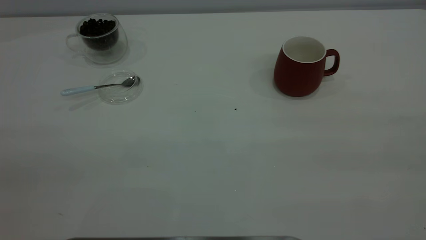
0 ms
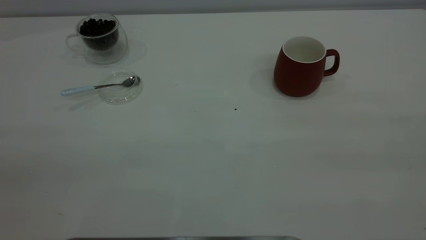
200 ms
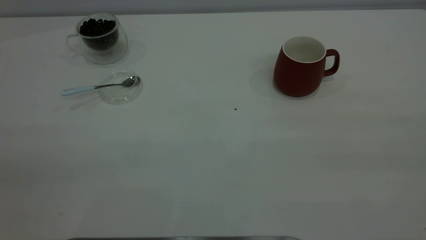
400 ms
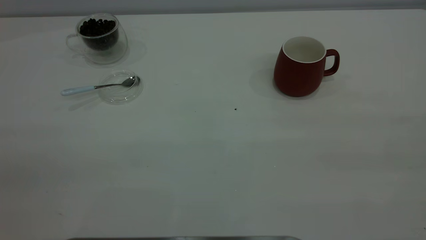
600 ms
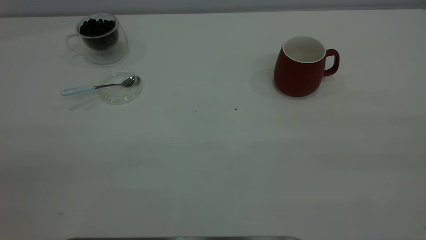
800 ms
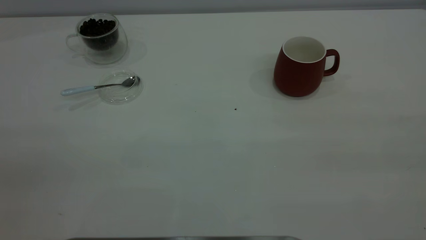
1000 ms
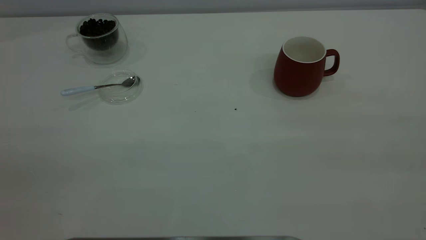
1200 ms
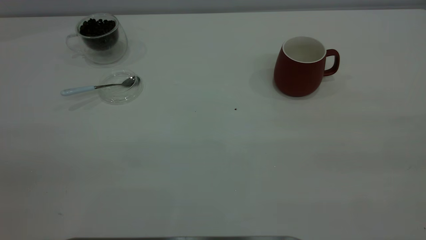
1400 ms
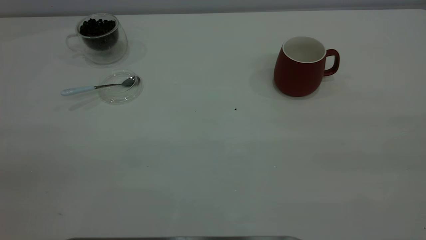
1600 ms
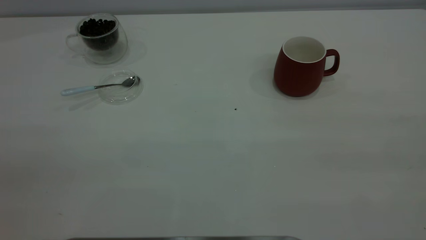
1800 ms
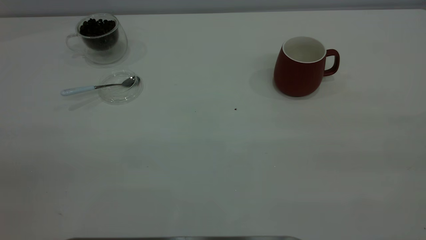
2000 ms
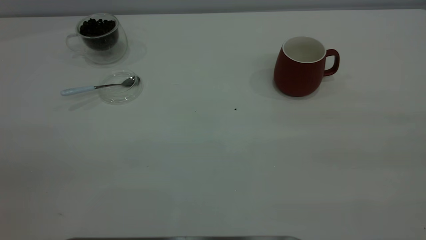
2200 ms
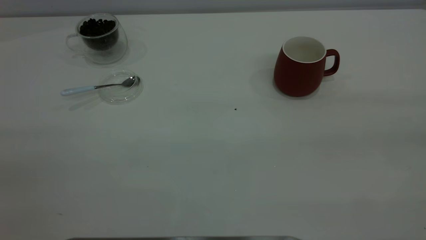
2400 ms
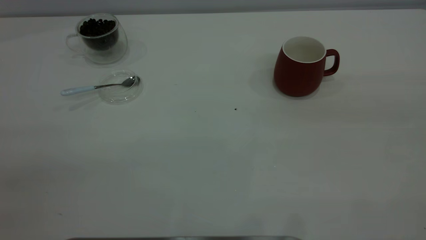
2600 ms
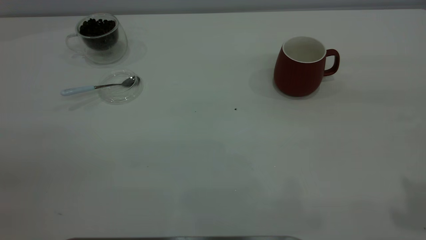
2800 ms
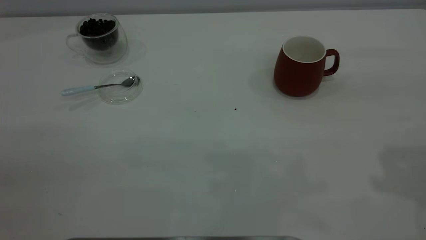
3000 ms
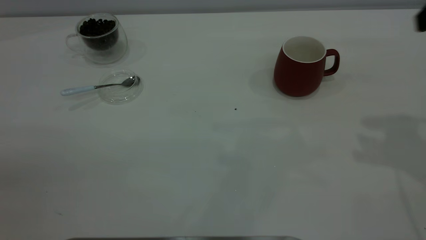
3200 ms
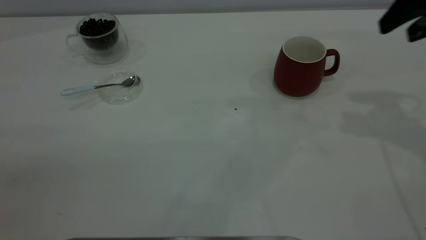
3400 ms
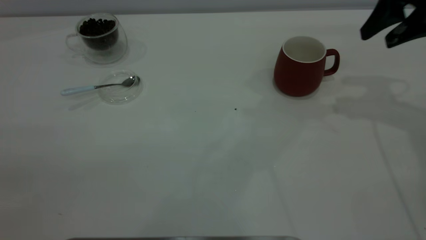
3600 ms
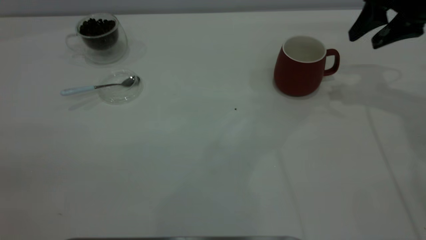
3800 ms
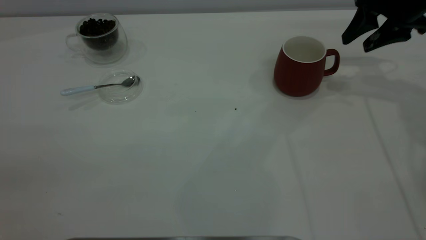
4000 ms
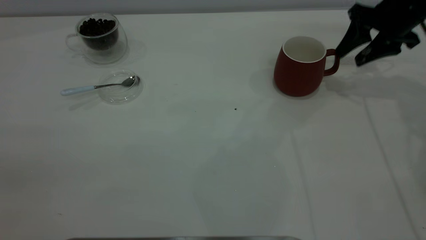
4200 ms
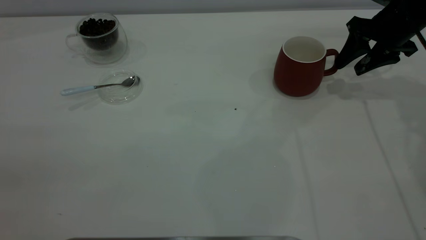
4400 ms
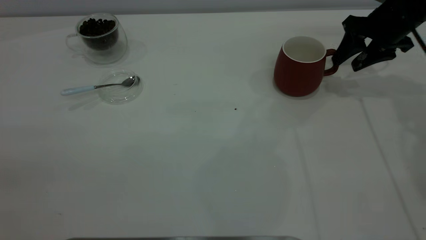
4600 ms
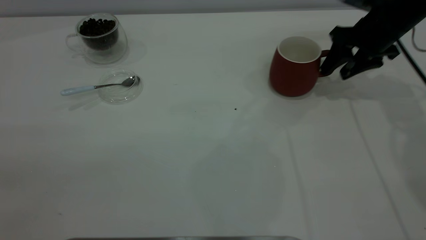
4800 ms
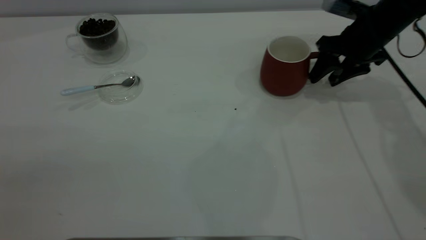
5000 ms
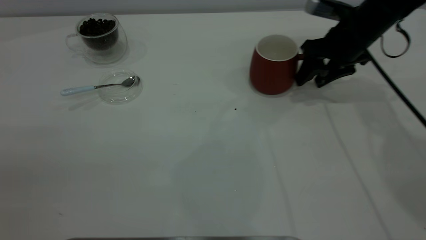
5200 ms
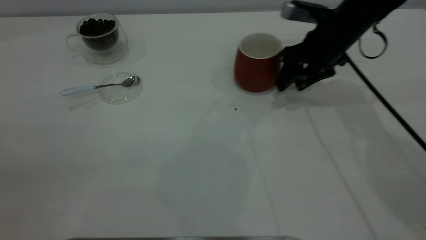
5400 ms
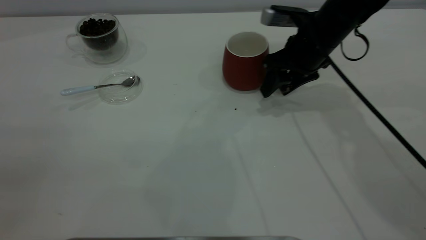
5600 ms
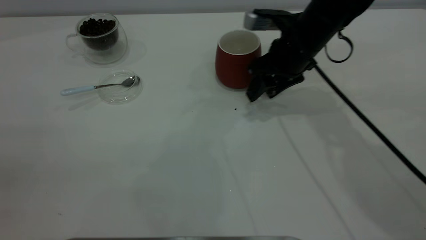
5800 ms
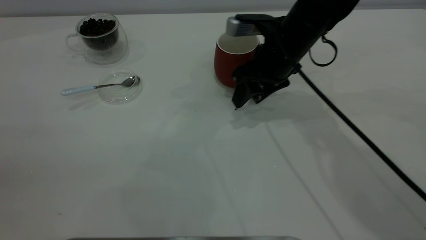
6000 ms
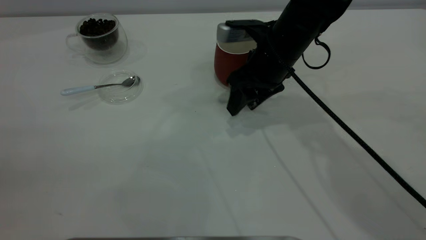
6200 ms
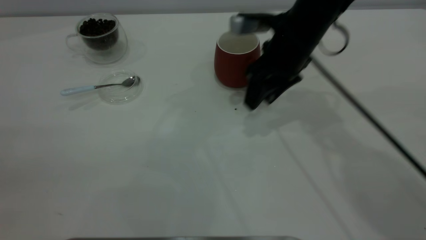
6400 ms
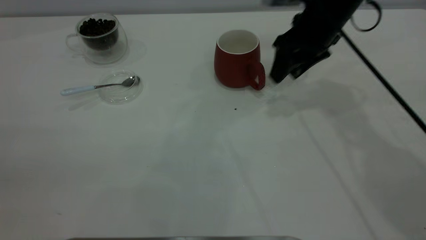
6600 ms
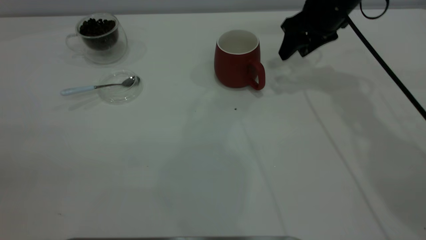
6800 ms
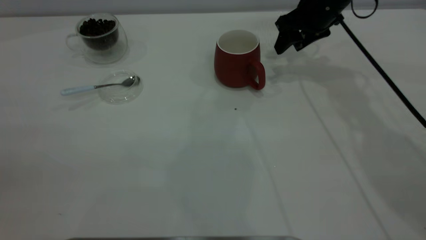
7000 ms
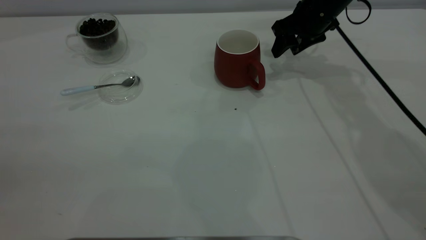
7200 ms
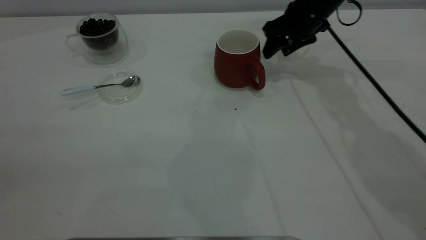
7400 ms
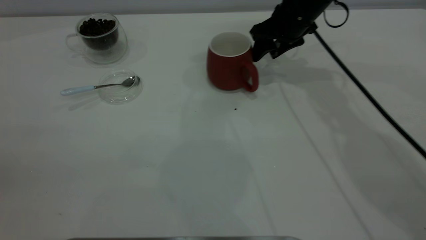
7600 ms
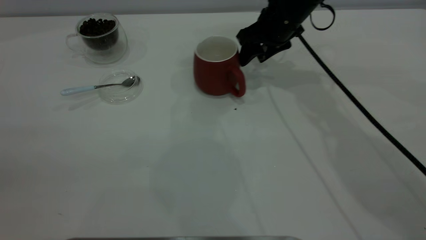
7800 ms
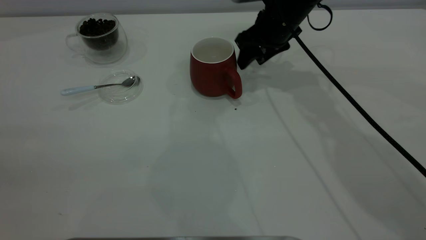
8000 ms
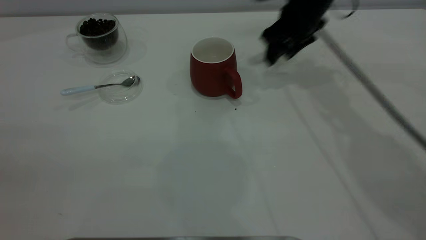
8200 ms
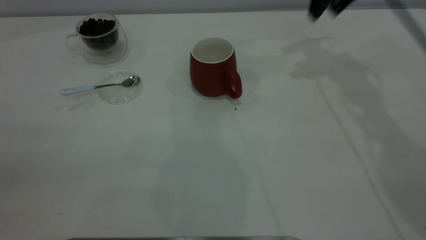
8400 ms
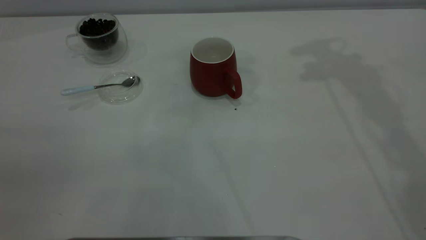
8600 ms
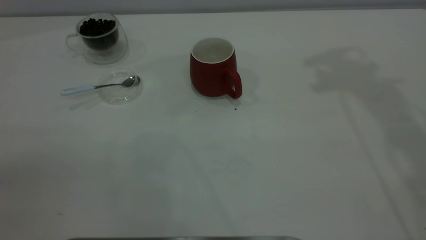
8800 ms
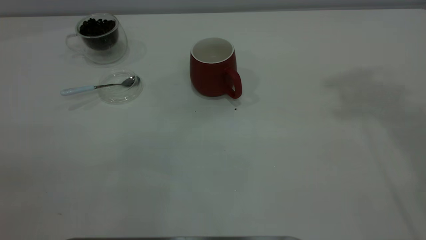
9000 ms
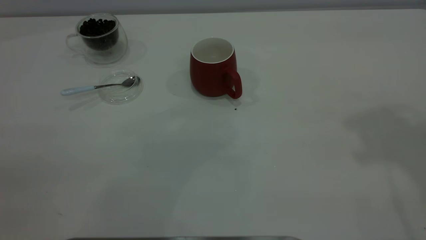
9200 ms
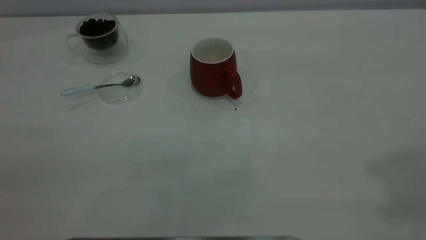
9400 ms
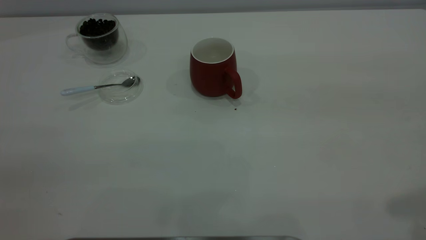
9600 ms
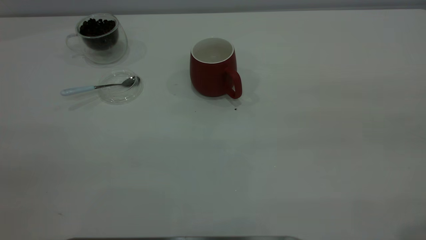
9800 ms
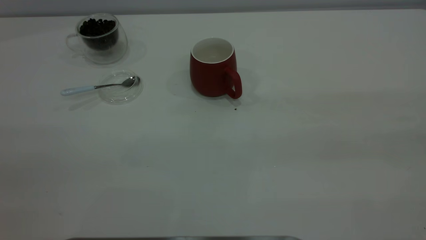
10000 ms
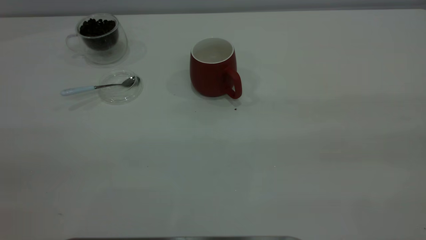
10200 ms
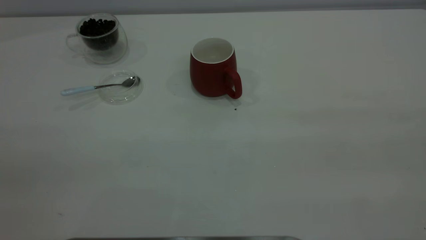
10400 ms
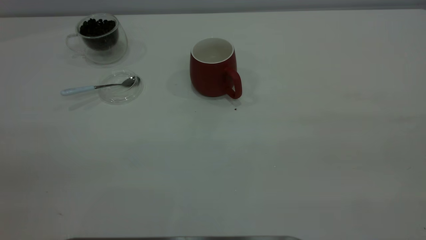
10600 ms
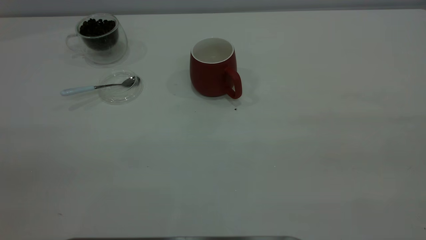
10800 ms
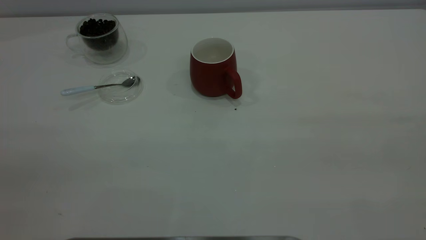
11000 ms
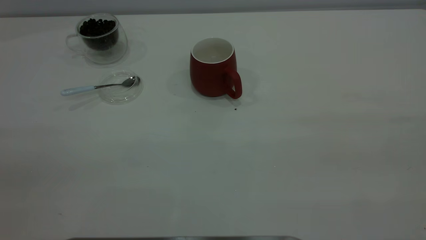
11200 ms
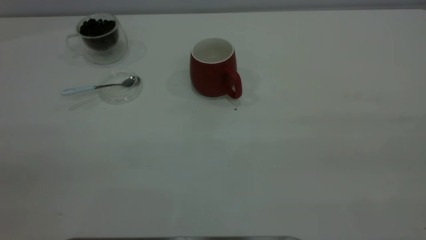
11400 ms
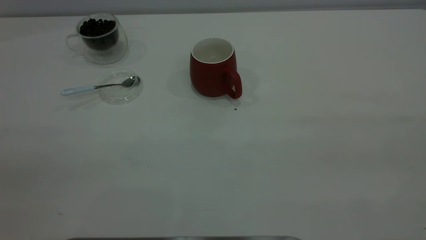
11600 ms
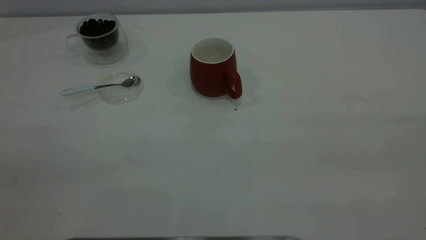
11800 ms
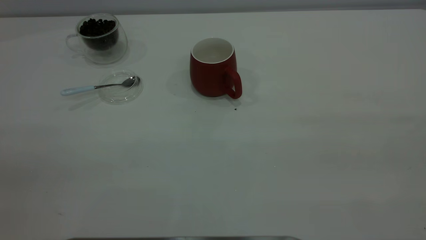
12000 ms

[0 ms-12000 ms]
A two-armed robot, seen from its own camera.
Task of the whole recording: the right gripper place the red cup in the center of the table, the left gripper take the blue spoon from the cup lid and scoop out the coffee beans from the coffee cup and put them into the red cup, the left gripper put the spoon back into the cup lid.
Step, 0 ms to 8000 ms: Move the cup to the center of view.
0 ms to 1600 ms: Both grippers stay put.
3000 ms to 4400 ms: The right gripper goes some 30 cm forward and downward.
4400 ms to 6000 ms: The right gripper heads to the left, covering about 20 cm.
6000 ms to 7600 ms: The right gripper moves forward, some 10 cm.
7600 ms to 9000 ms: The right gripper heads upward, backward and to the right, covering roughly 40 cm.

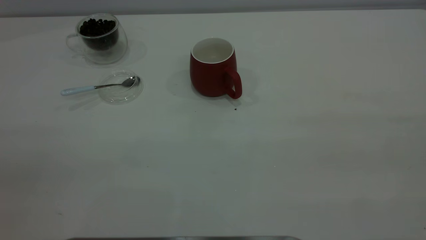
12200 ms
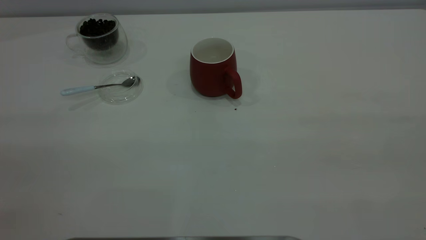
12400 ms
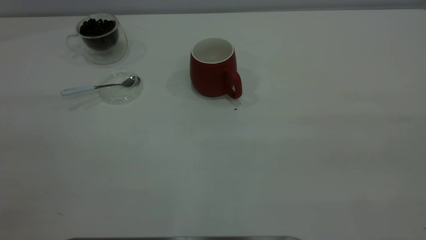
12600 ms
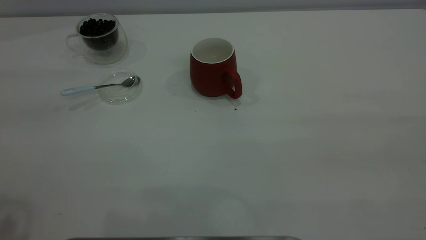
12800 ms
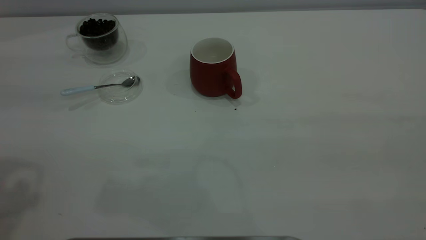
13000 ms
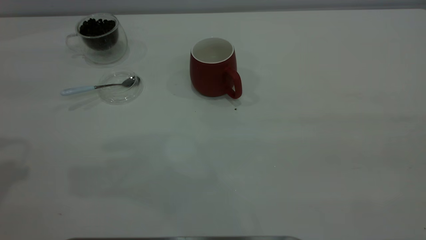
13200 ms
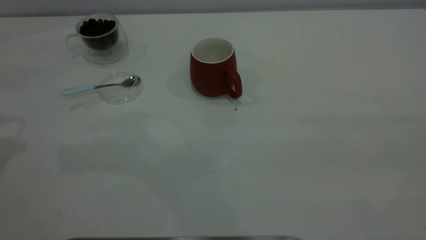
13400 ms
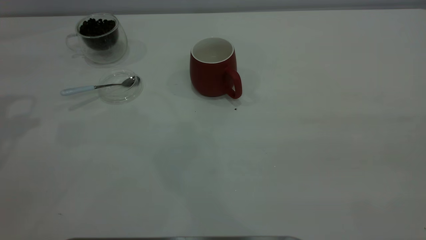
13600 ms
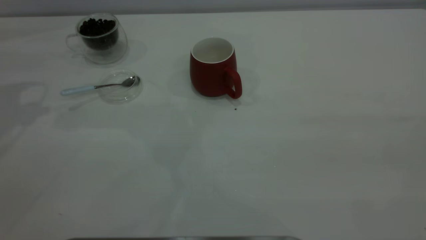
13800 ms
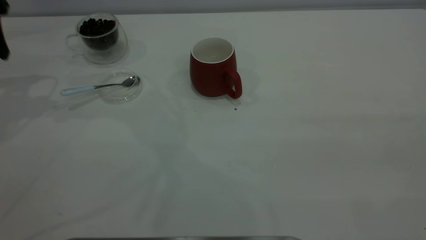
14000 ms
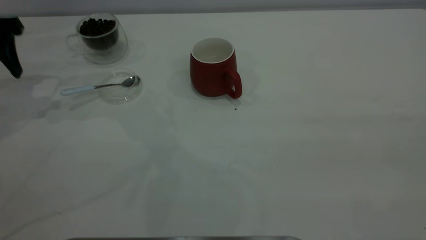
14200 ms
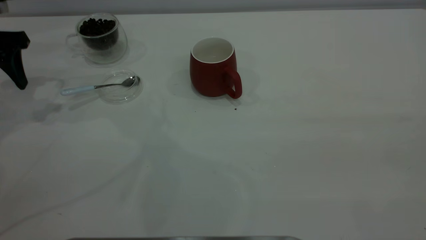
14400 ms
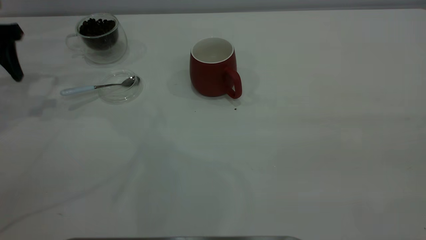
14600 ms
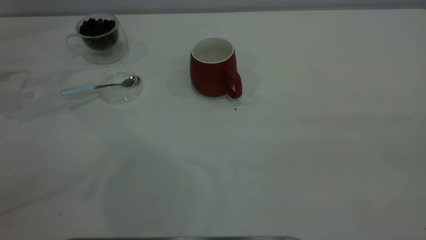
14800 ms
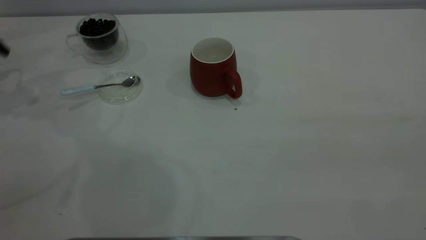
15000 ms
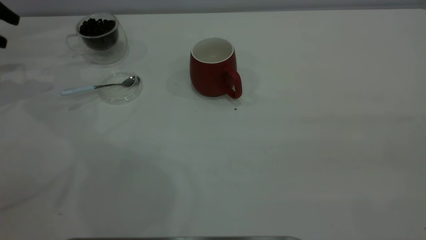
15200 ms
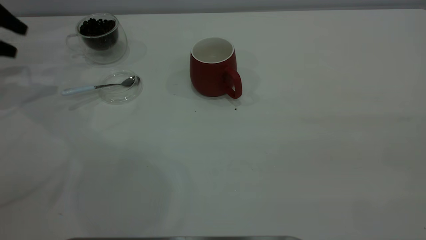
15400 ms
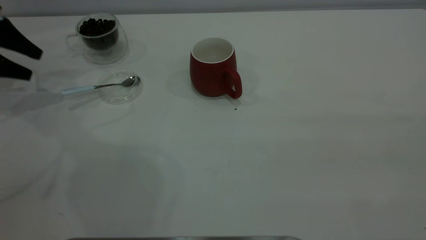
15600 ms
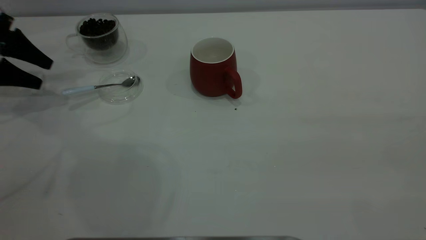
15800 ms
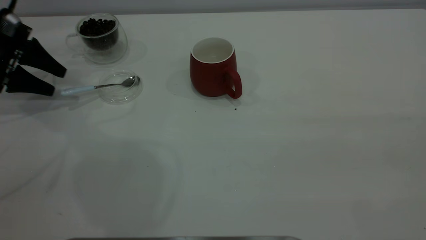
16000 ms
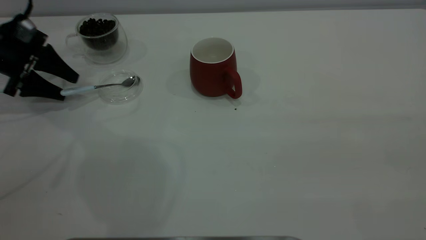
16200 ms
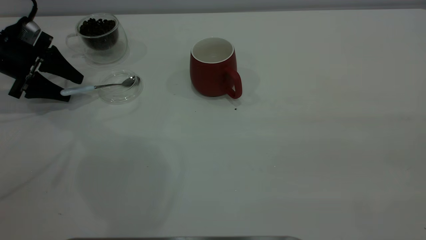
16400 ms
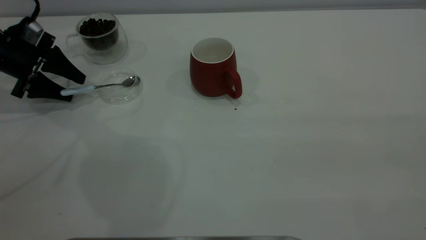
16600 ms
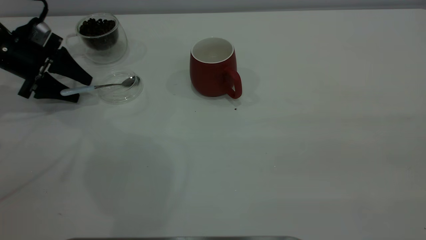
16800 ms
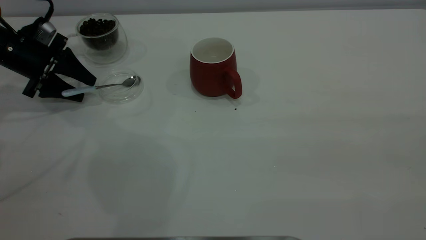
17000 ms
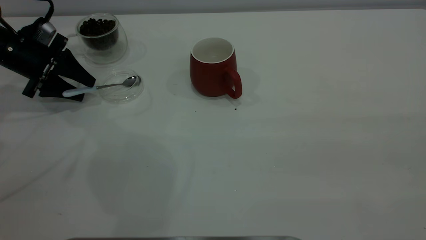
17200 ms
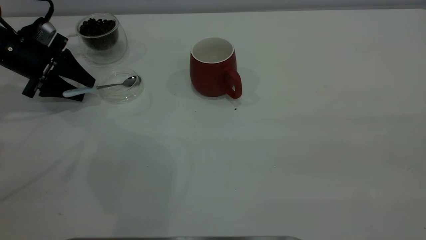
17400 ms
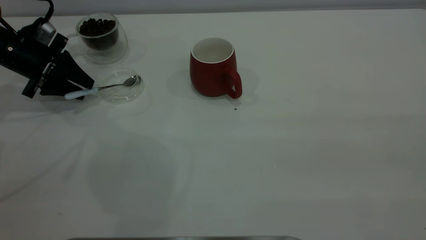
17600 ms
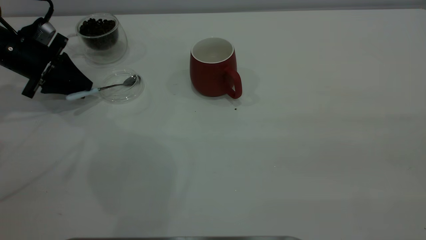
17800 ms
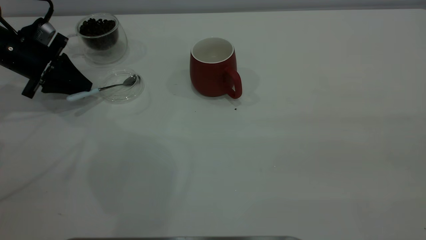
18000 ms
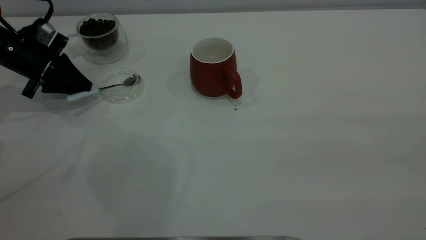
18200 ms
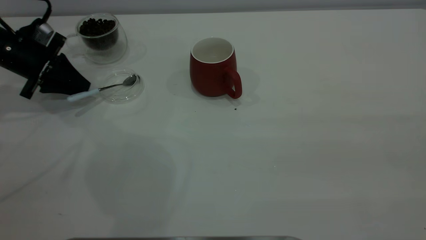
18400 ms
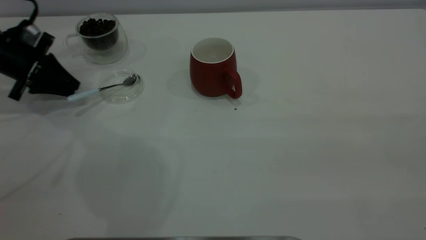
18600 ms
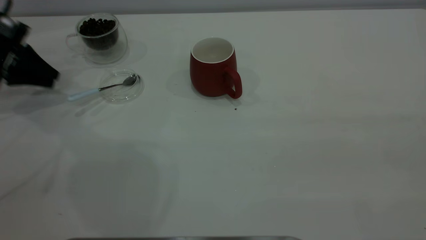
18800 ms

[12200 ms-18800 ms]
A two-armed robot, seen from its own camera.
Task of the whole recording: the right gripper place the red cup in the center of the table, the left gripper take the blue spoon from the cup lid and scoop out the coffee beans from the coffee cup and put them into the red cup, the left gripper put the spoon back into the cup lid.
13800 ms to 15400 ms: The left gripper moves downward and to the left, roughly 10 cm.
15400 ms to 17200 ms: The left gripper heads downward and to the right, covering about 10 cm.
17200 ms to 18800 ms: The left gripper goes some 5 cm to the left, and closes its fingers.
